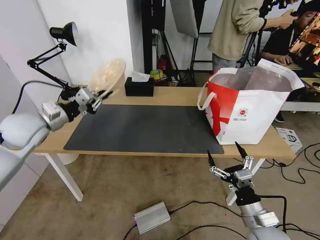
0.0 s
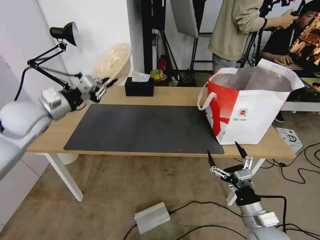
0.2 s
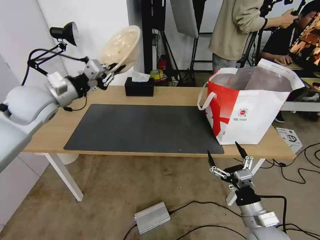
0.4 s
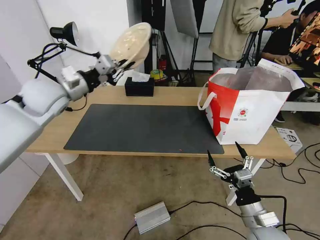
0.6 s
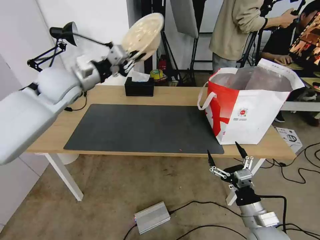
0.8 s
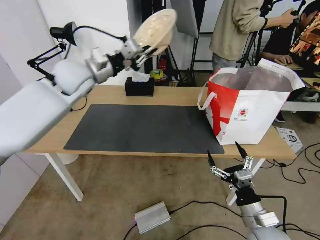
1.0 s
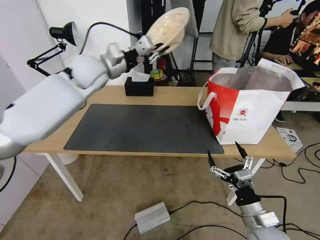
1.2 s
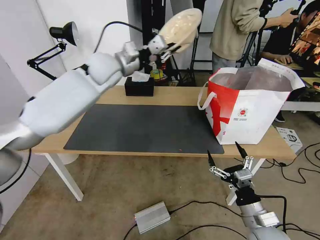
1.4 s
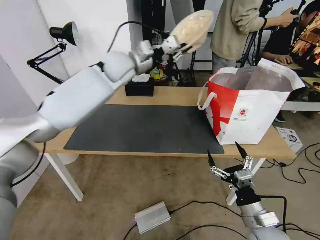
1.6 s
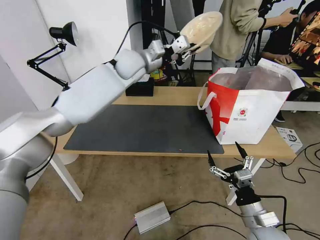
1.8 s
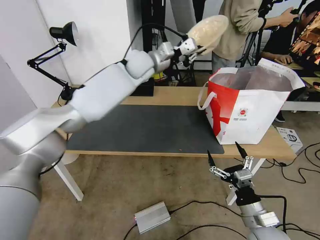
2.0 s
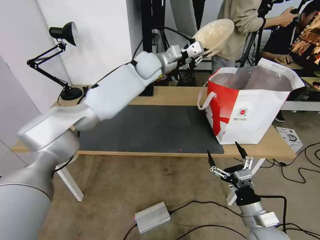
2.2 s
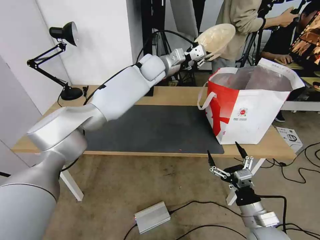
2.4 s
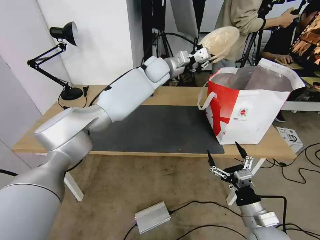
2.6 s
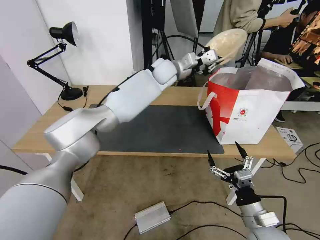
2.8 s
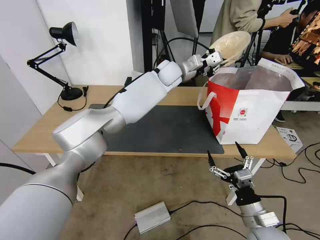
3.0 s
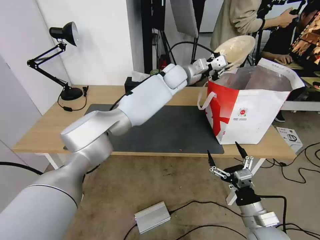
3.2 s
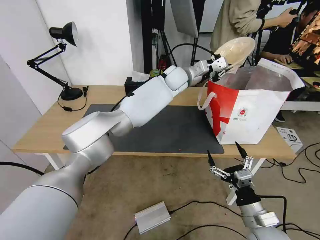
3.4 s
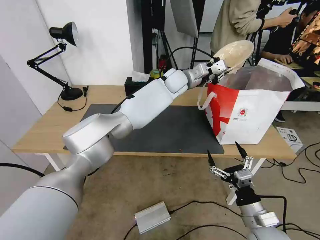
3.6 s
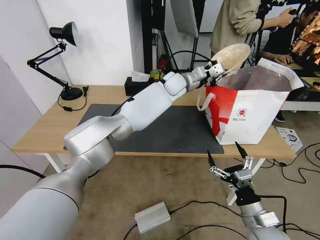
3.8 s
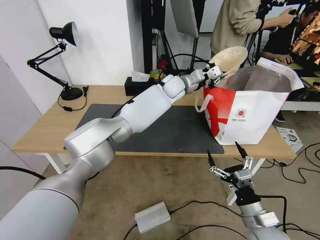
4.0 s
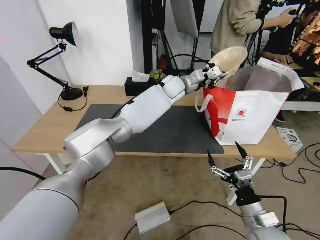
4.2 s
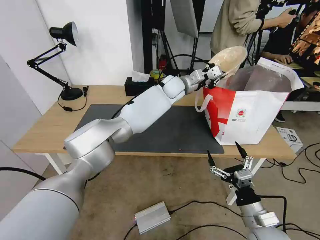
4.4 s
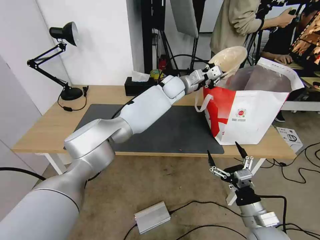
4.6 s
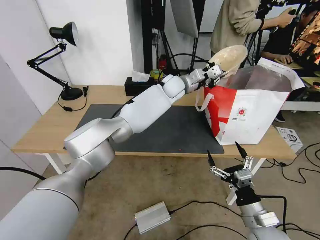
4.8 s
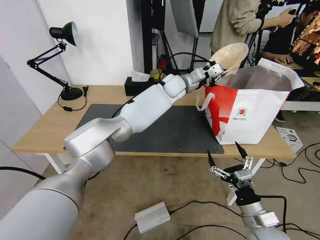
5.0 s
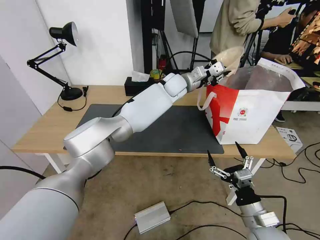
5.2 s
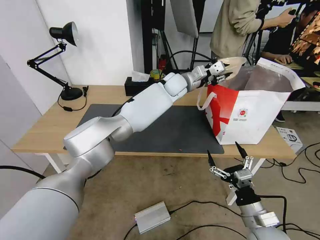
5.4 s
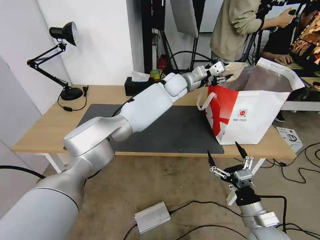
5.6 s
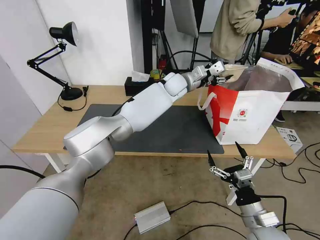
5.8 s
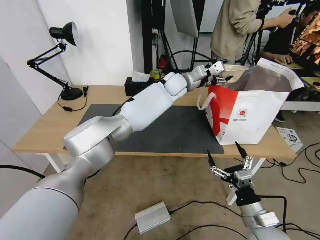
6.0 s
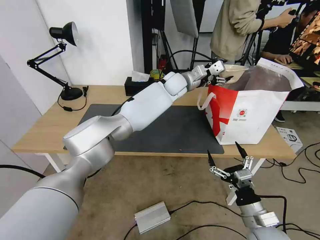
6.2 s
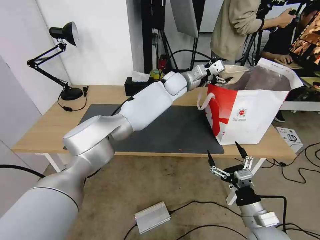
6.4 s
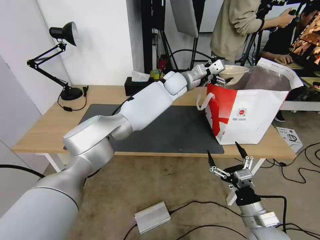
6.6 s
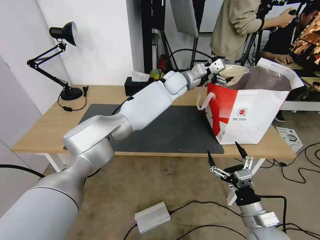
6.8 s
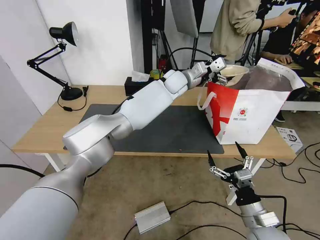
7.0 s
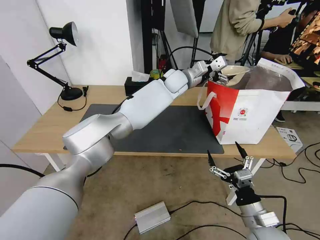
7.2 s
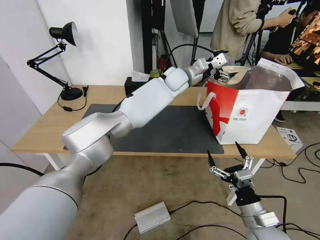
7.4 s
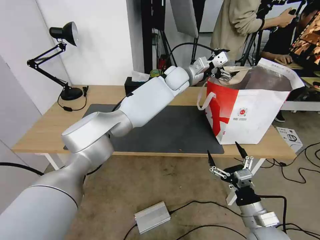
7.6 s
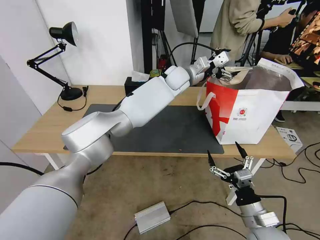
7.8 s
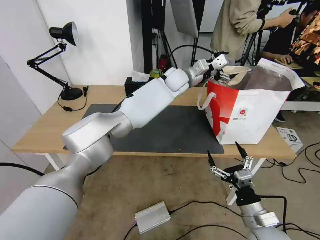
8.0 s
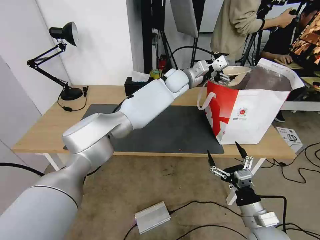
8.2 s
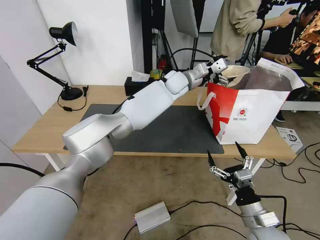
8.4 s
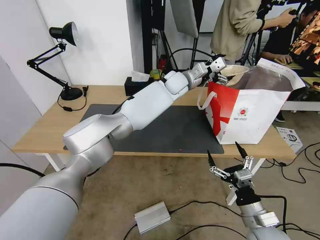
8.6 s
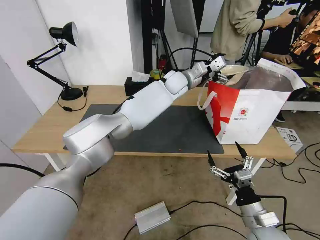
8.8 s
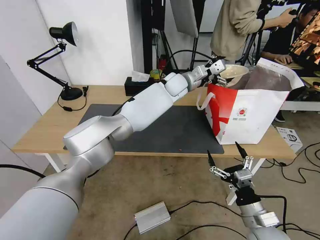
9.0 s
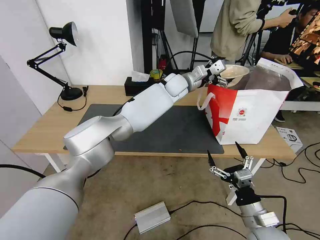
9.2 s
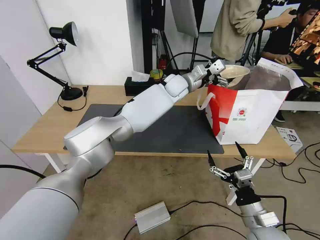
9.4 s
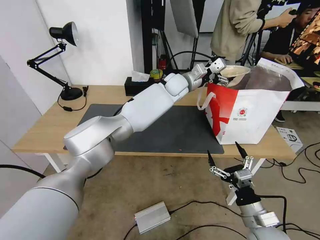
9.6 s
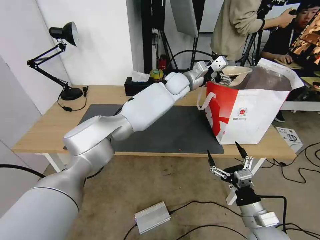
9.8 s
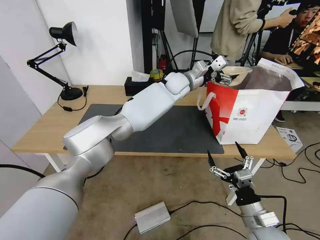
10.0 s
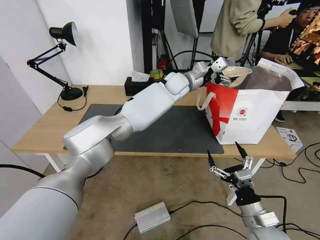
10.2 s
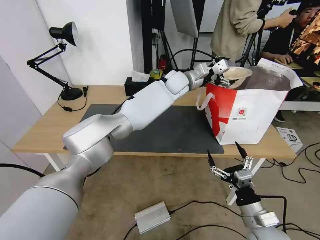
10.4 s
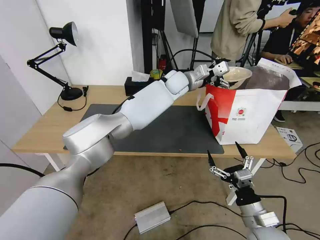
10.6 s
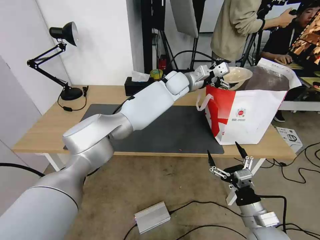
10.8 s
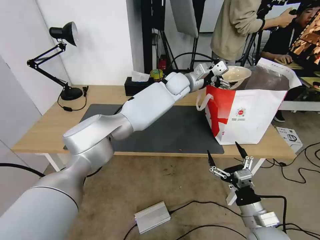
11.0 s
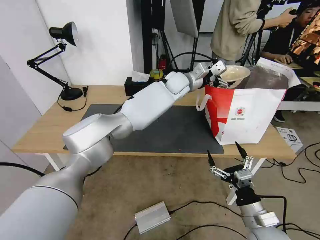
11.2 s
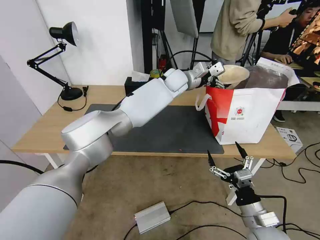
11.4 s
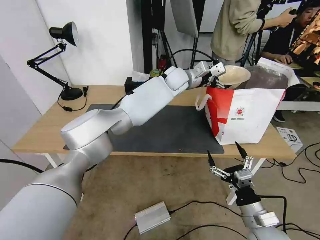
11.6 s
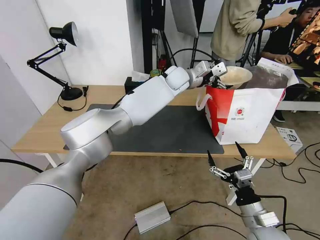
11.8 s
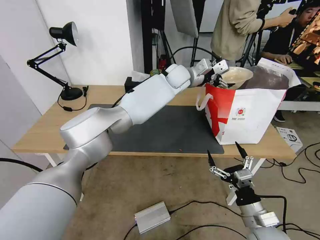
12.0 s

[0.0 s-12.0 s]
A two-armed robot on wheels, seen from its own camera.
Task of the whole recording: Pick up the trash from the table and place it into the takeout bag.
0.0 to 1.6 s: The left gripper shifts some 30 cm to the right, forward and upward.
1.6 to 3.0 s: The left gripper moves to the right, roughly 15 cm.
3.0 to 4.4 s: The left gripper is displaced downward by approximately 5 cm.
4.4 to 6.0 s: The left gripper opens.
6.0 to 12.0 s: The grippers make only small movements.

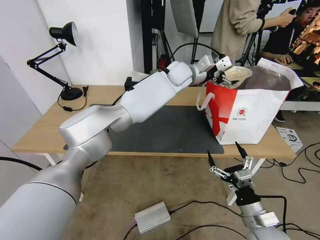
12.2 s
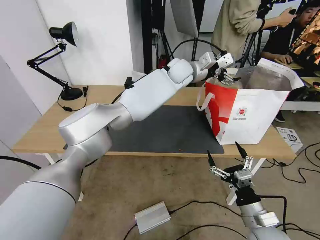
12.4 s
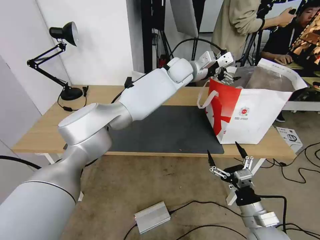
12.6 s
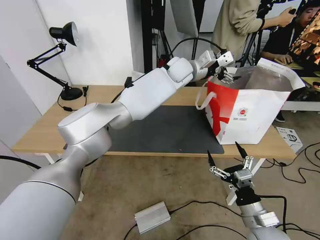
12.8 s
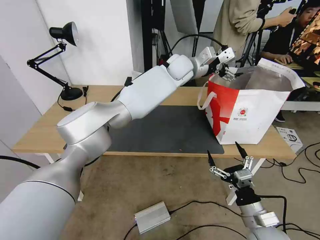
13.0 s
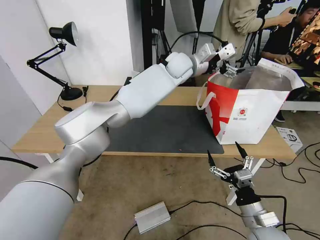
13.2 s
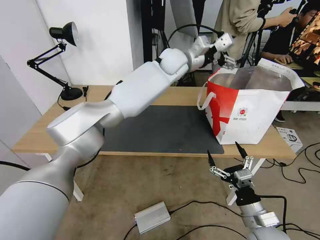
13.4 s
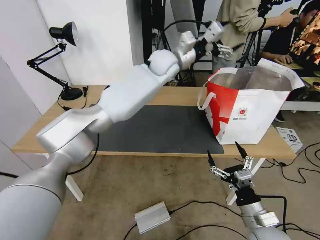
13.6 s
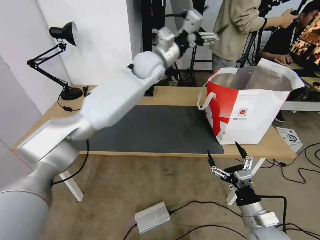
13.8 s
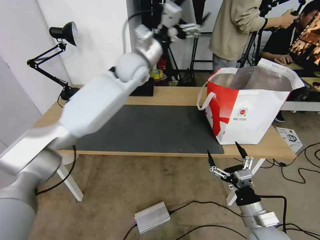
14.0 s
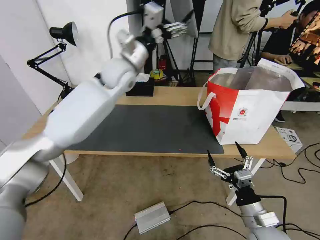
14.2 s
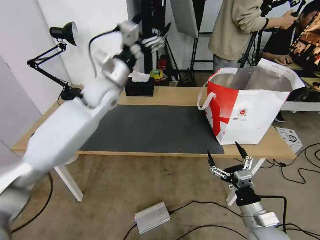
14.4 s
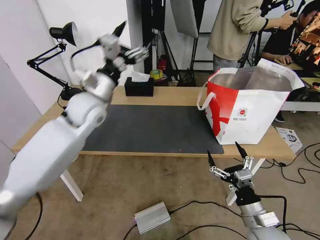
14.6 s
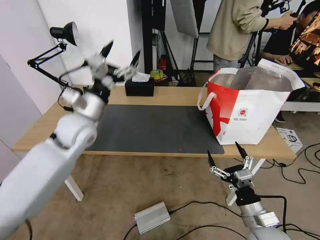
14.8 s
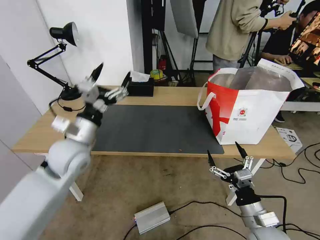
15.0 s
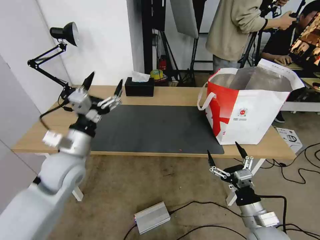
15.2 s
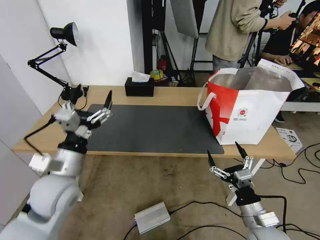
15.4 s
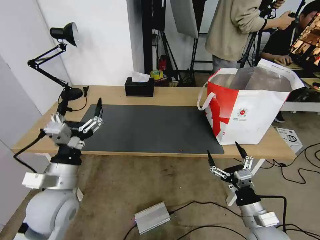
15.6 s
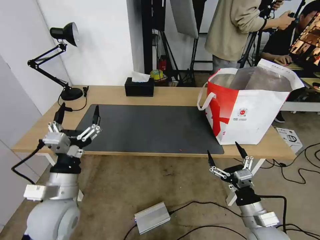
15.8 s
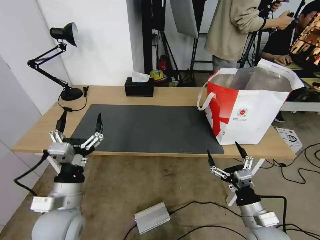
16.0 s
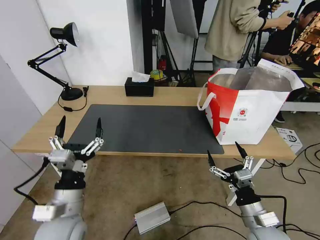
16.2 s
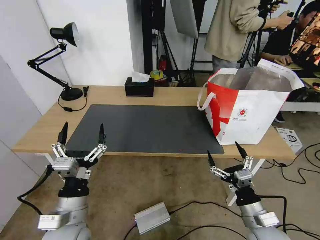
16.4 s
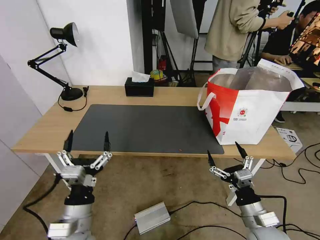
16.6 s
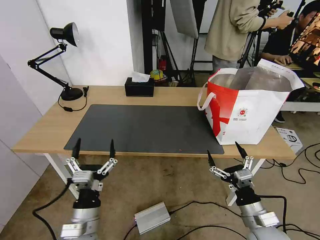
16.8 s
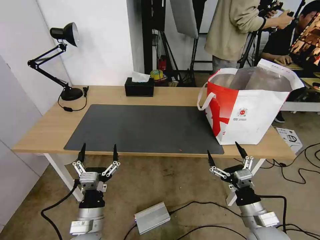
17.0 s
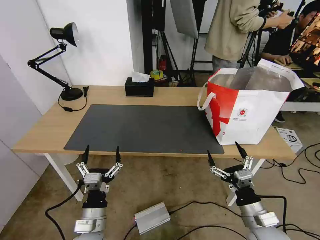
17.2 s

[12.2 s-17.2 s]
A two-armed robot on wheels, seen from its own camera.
Task of the whole recording: Pick up the trash from the table and place it into the takeout bag.
12.2 to 13.8 s: The left gripper shifts roughly 10 cm to the left.
13.8 to 15.6 s: The left gripper travels backward, to the left and downward by some 50 cm.
15.6 to 17.2 s: The left gripper shifts some 15 cm downward, backward and to the right.

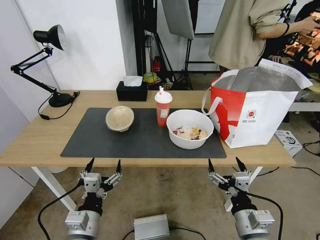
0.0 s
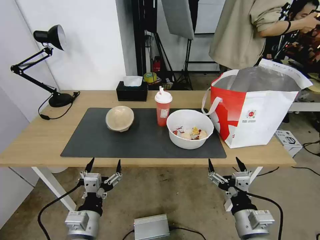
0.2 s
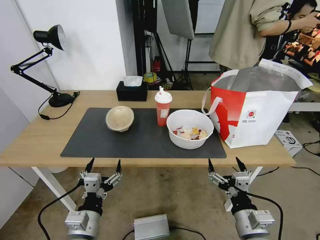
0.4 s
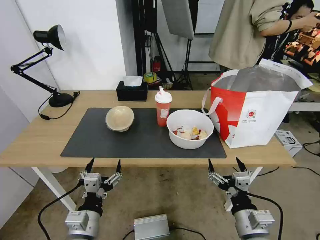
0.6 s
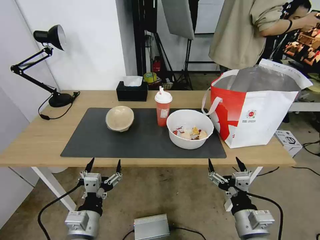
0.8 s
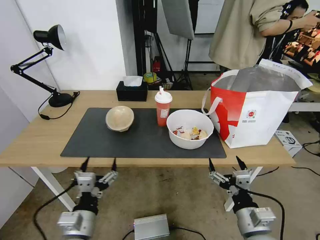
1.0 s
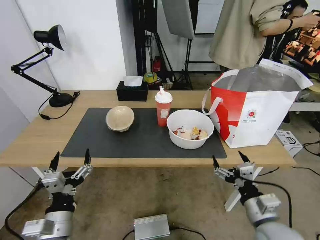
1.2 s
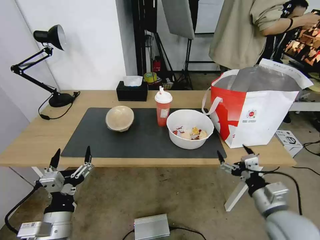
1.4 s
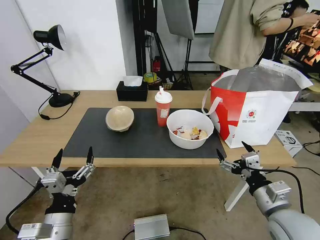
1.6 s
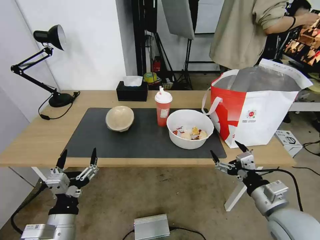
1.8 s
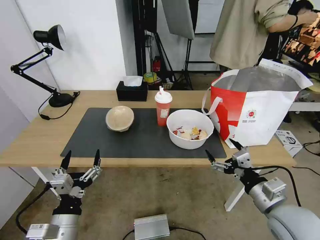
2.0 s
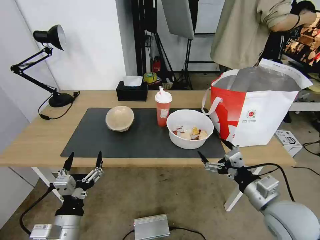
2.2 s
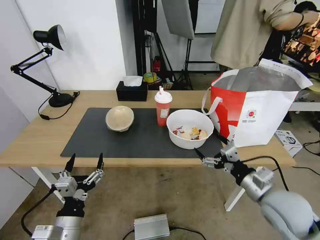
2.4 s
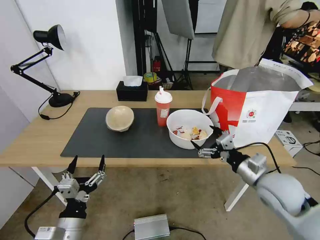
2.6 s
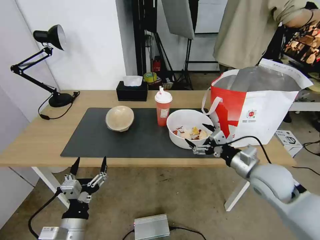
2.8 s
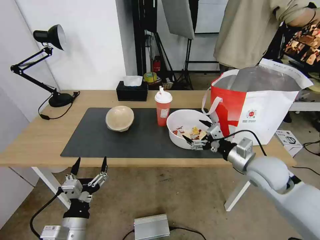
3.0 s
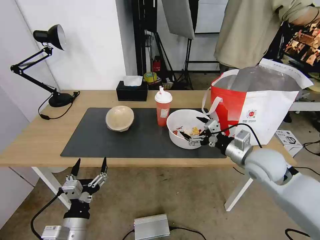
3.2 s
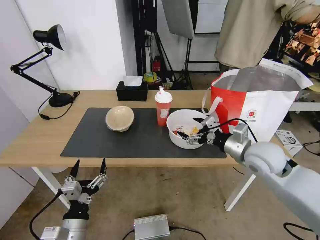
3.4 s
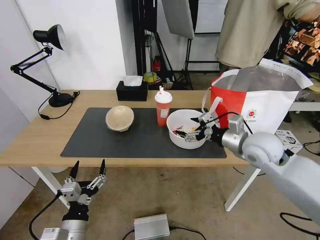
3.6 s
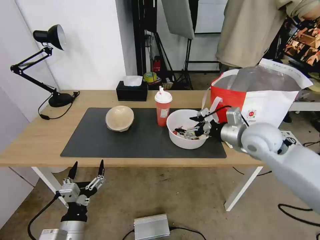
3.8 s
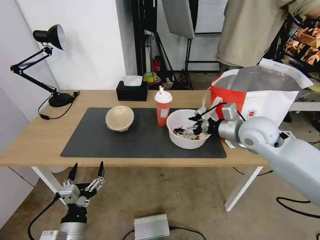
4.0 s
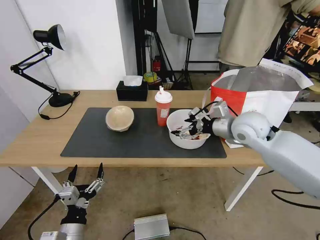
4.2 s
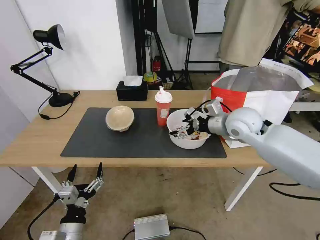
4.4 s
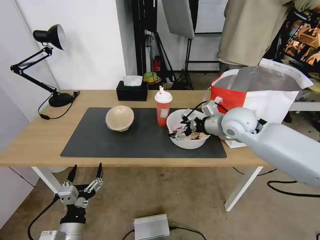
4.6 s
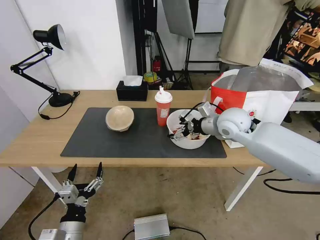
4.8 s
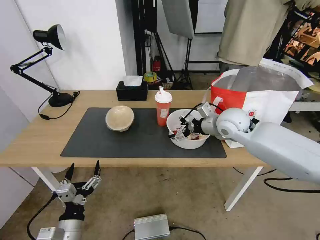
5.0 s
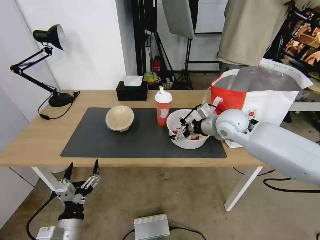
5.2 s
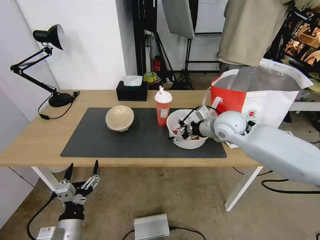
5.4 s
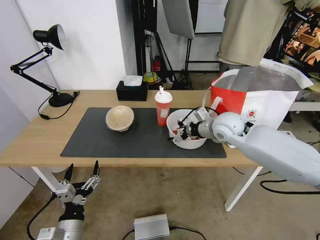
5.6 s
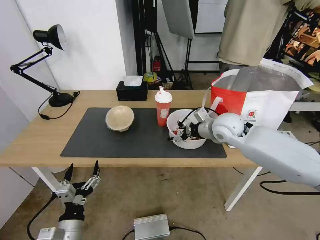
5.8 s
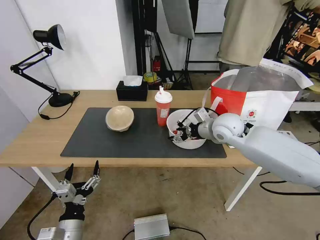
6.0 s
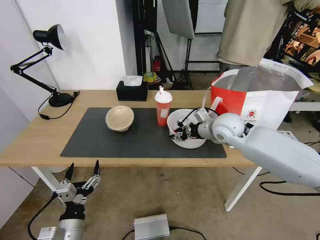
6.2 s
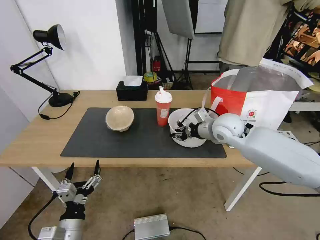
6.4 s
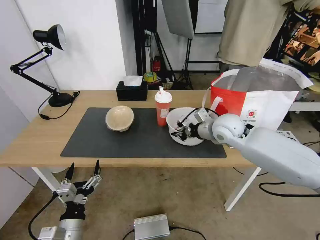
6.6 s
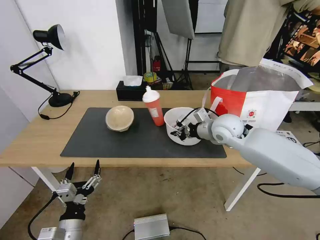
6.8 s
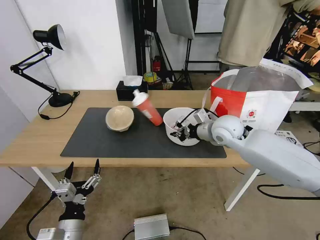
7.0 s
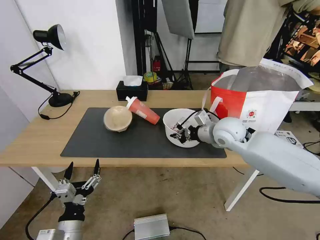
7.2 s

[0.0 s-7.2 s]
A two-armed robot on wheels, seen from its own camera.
Task of the whole recording: Pick up the trash from the table and place it into the takeout bag.
1.4 to 2.8 s: The right gripper shifts some 10 cm forward.
2.8 to 4.4 s: The right gripper travels forward and upward by some 15 cm.
4.4 to 5.8 s: The right gripper moves some 5 cm.
5.8 to 7.2 s: The right gripper closes.
